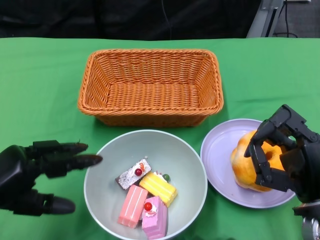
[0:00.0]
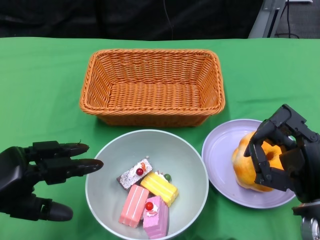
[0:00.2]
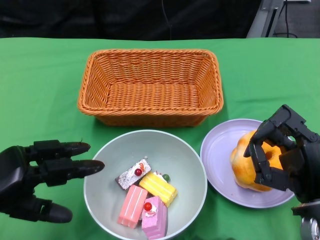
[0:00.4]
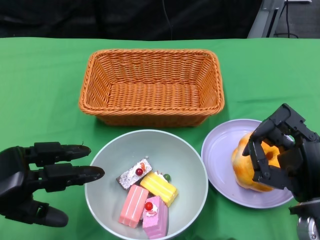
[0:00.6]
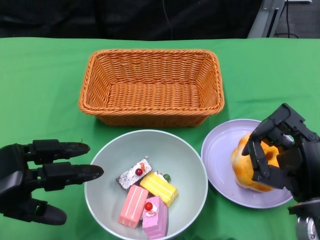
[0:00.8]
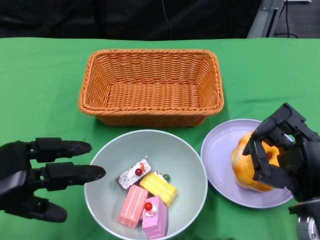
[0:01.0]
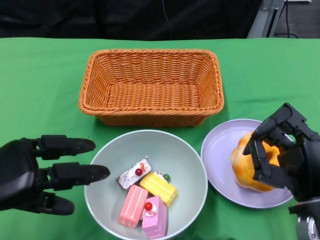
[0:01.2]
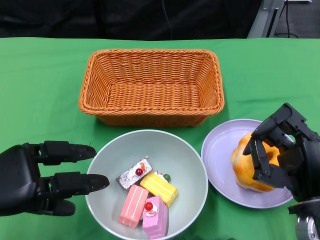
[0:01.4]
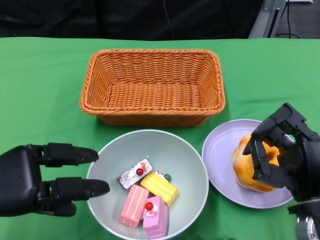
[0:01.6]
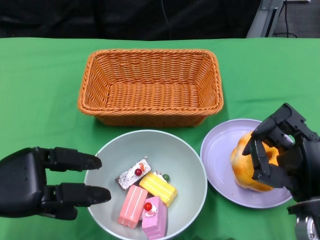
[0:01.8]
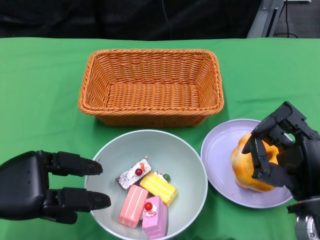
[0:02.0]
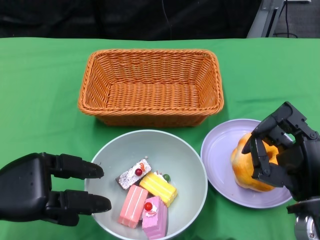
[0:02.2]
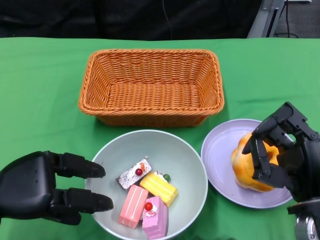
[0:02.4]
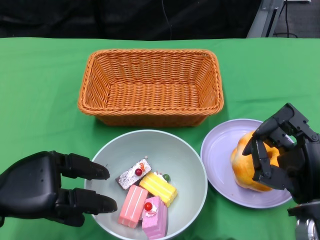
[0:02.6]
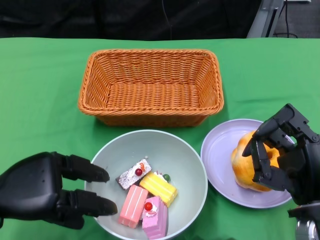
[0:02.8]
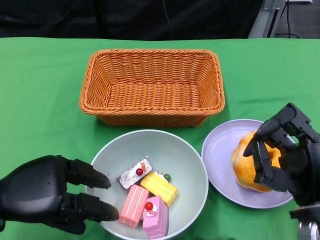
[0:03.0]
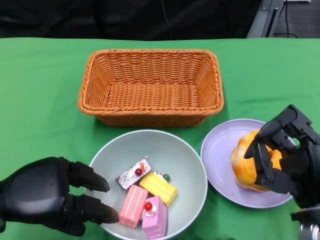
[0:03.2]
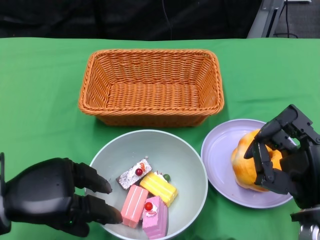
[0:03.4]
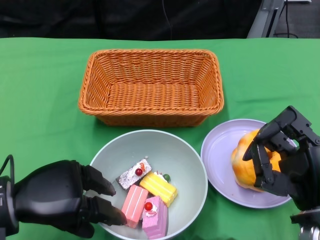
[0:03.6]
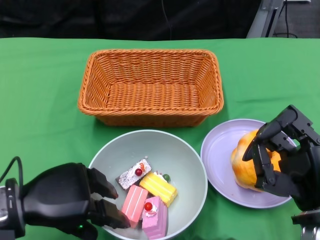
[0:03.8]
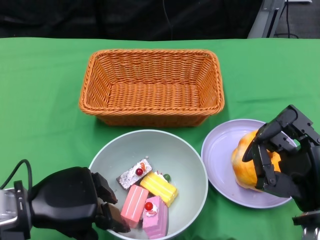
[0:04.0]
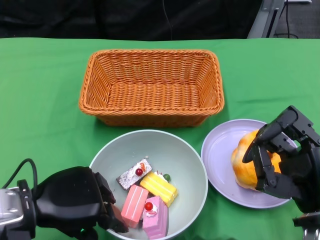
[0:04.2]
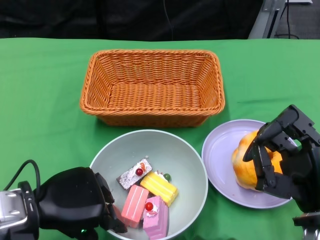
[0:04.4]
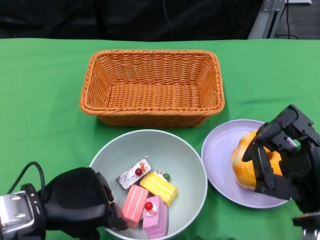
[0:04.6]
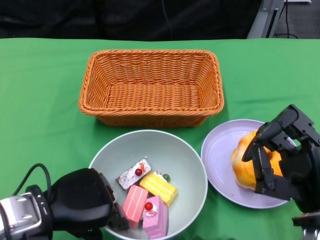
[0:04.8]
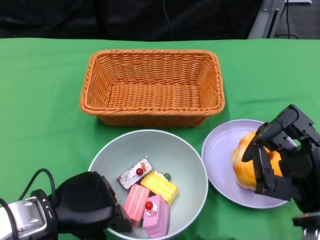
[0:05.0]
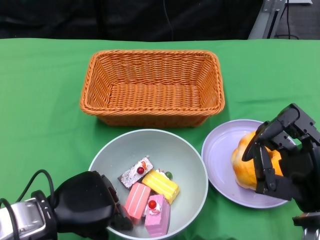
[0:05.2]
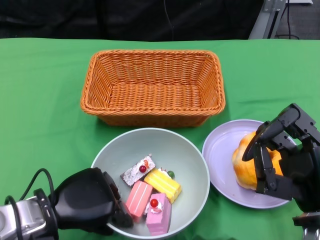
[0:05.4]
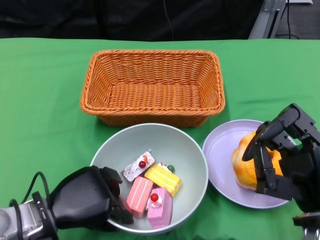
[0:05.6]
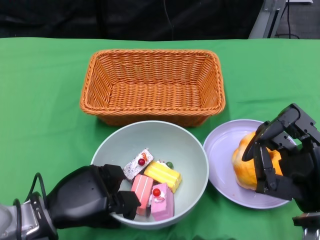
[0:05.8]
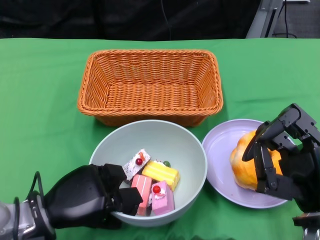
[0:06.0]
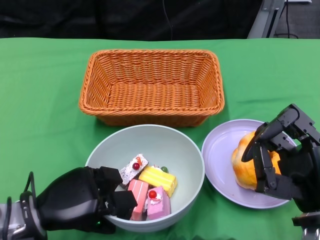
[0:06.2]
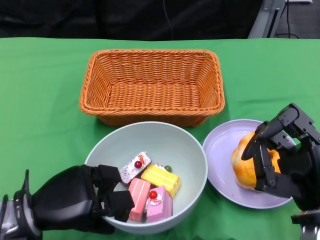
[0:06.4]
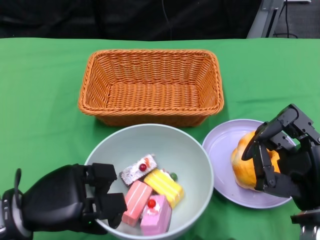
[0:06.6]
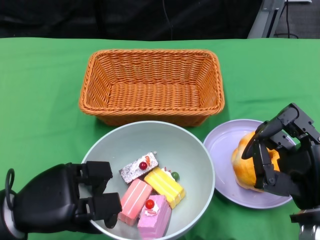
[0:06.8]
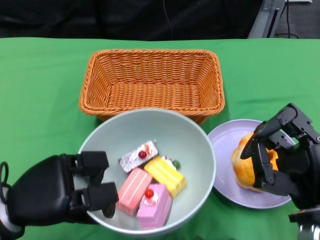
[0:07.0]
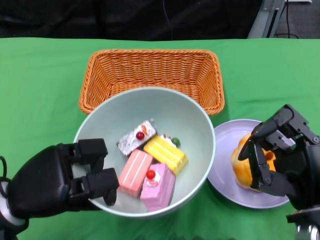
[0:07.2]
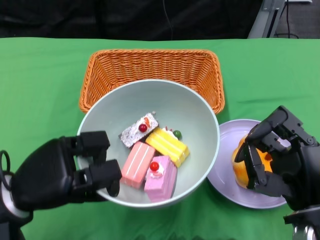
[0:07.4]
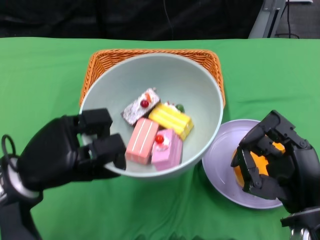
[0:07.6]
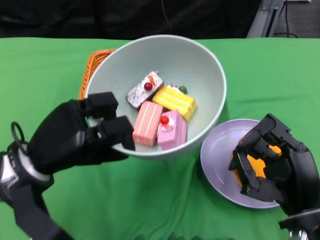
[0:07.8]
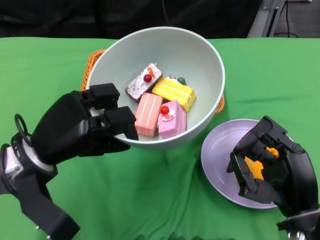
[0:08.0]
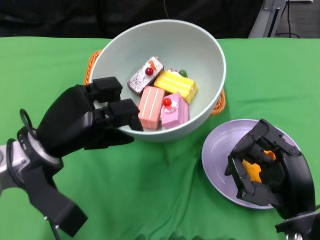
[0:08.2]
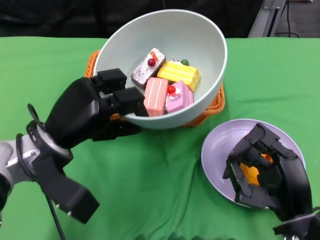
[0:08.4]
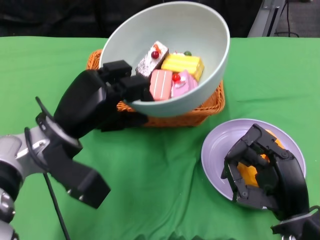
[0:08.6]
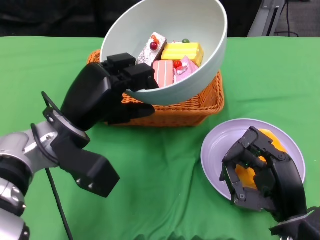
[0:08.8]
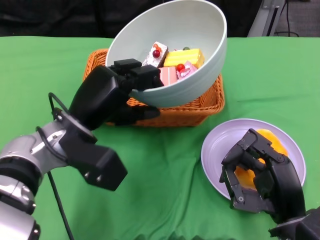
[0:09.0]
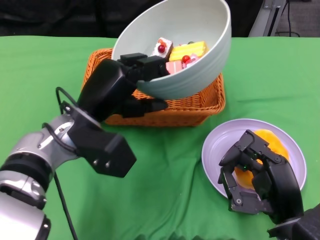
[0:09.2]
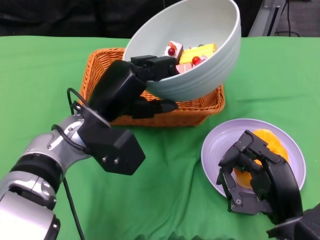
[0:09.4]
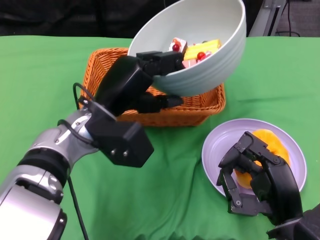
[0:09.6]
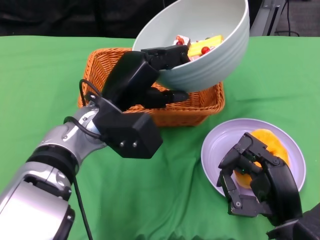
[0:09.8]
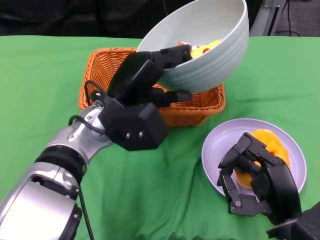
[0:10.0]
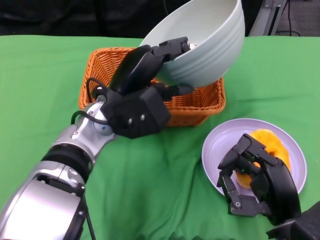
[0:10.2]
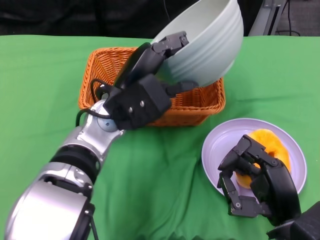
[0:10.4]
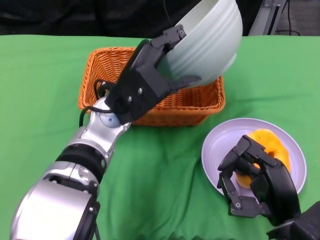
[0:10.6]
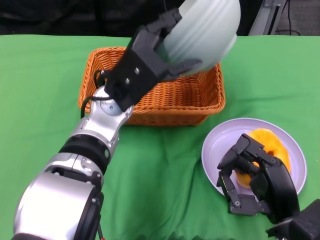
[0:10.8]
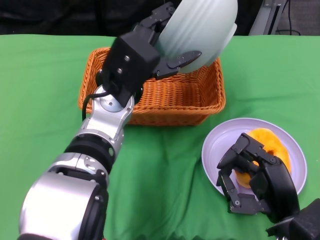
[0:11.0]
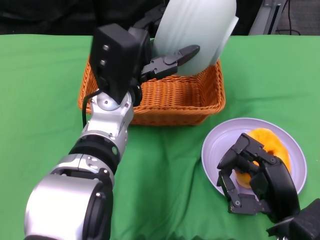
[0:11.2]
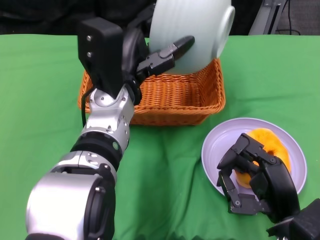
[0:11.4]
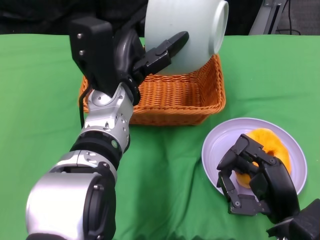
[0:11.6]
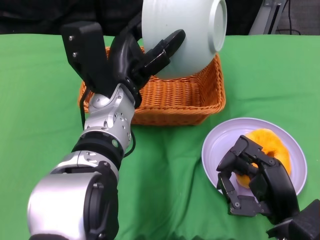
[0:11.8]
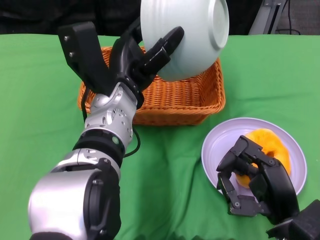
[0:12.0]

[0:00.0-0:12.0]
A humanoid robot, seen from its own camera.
Step, 0:00.0 to 0:06.2: Grasp the bowl with the left gripper.
0:01.6 to 0:03.0: The hands stay close to where they were, moving slightly.
0:04.4 to 0:06.0: The left hand shifts approximately 5 cm downward.
0:06.0 to 0:07.6: The left hand heads upward, covering some 5 cm.
0:07.6 to 0:09.0: The left hand goes roughly 10 cm to the right and forward.
0:09.0 to 0:10.4: The left hand shifts about 5 cm to the right.

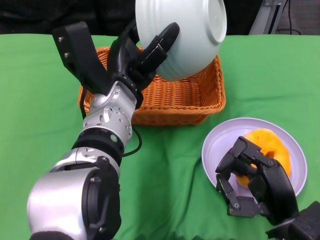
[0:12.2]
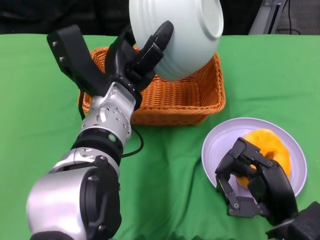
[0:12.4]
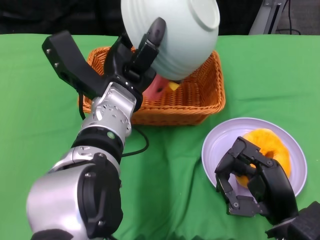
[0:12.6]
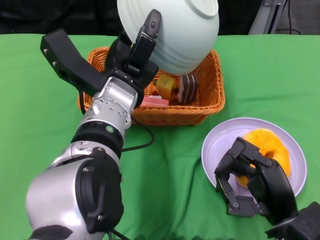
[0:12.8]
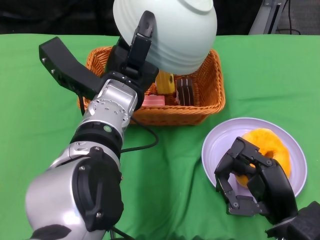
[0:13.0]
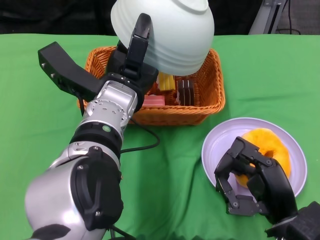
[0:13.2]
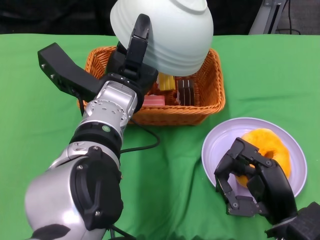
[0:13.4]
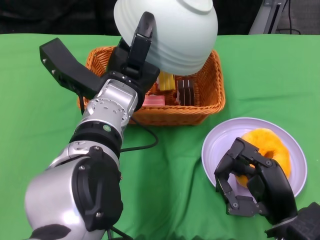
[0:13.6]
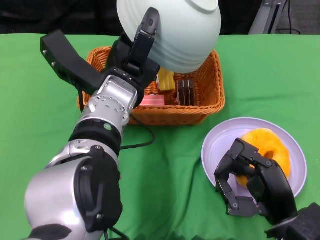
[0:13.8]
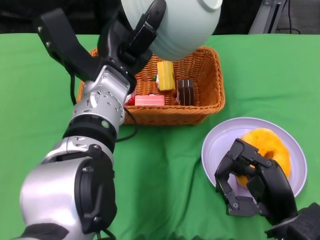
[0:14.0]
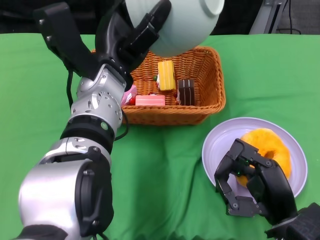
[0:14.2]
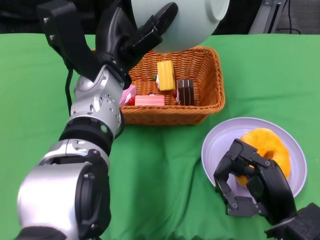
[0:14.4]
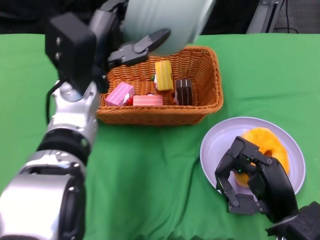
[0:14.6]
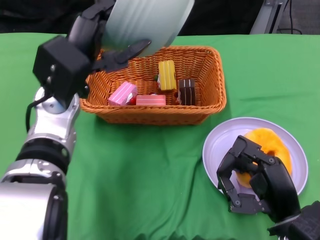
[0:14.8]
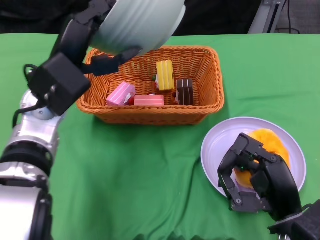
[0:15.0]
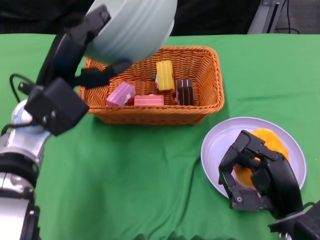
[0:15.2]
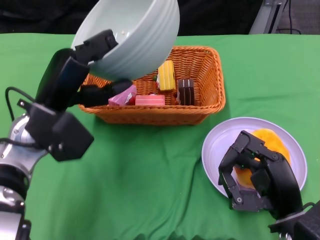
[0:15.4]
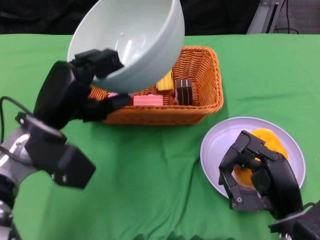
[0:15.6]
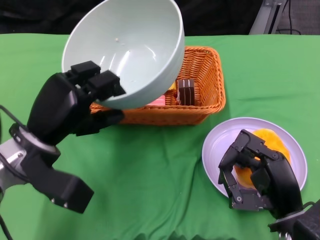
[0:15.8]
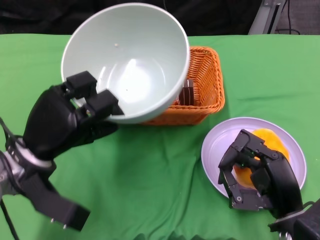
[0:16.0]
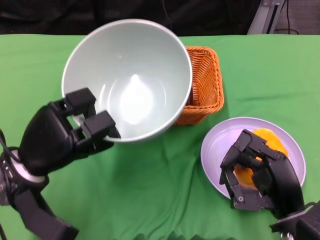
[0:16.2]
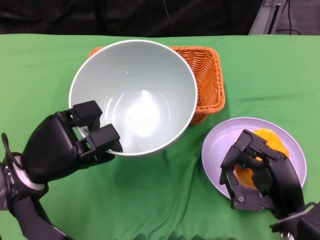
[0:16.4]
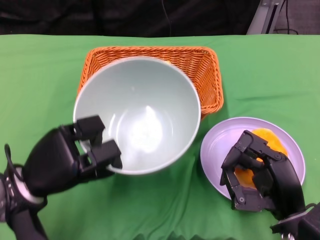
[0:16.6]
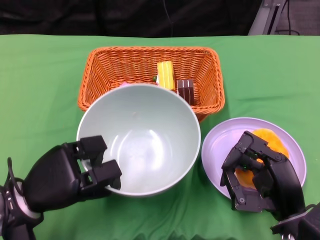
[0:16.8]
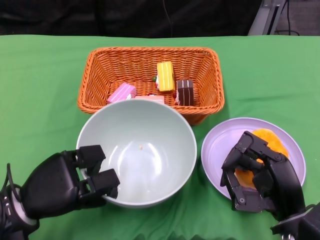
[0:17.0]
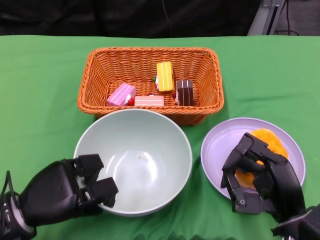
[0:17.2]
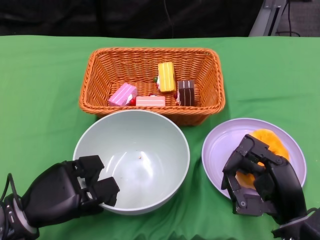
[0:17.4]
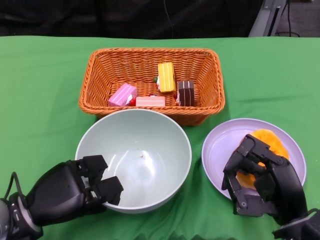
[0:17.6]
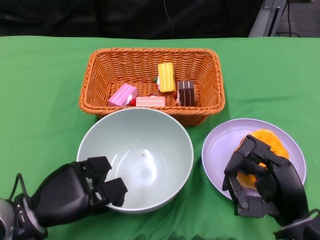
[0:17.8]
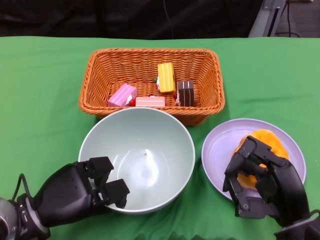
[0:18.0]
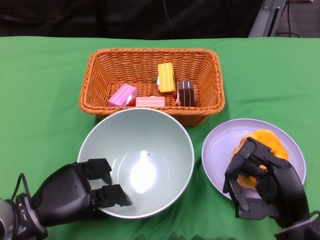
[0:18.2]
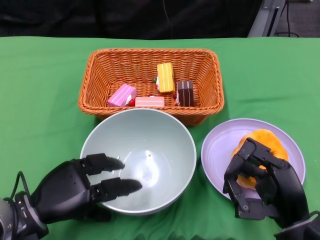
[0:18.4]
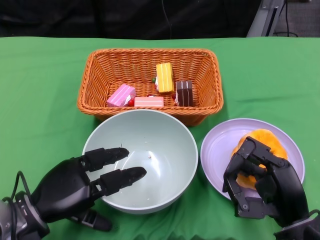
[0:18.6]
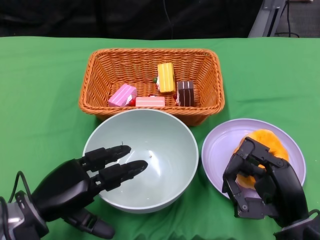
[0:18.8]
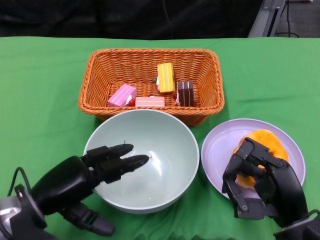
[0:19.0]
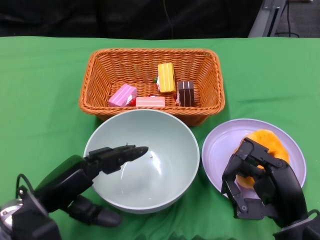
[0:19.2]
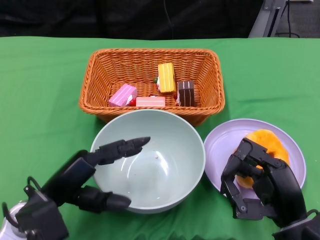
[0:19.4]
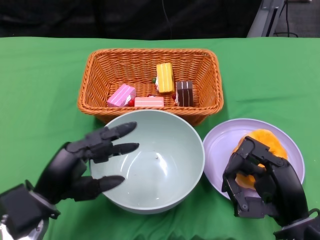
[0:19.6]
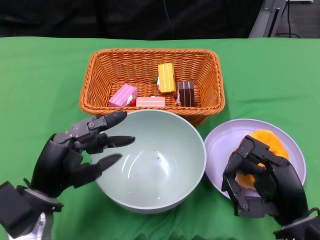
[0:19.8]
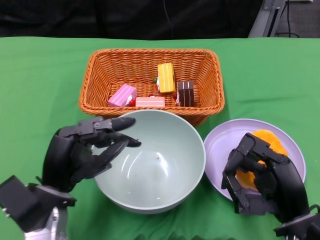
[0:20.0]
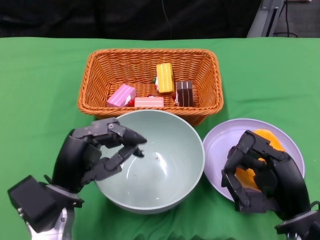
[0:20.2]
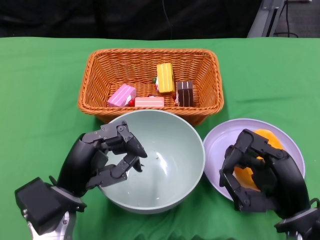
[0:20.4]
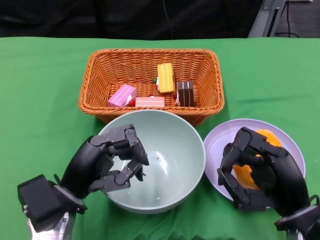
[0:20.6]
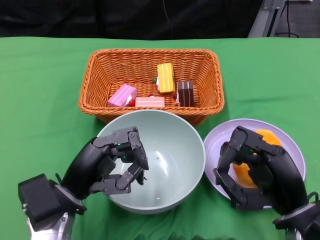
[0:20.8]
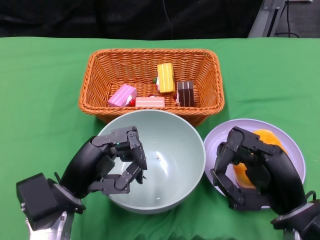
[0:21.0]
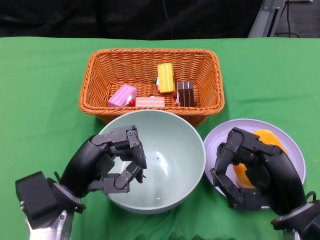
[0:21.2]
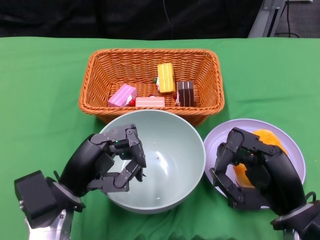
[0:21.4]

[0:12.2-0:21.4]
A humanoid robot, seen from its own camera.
Step, 0:13.6 to 0:18.2: Place the bowl on the table with the left gripper.
0:13.8 to 0:15.2: The left hand shifts about 10 cm to the left.
0:15.2 to 0:16.8: The left hand heads downward, backward and to the left, covering some 15 cm.
0:19.8 to 0:21.4: The hands stay close to where they were, moving slightly.

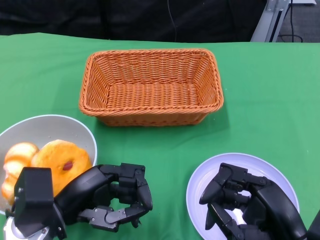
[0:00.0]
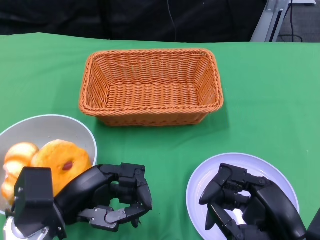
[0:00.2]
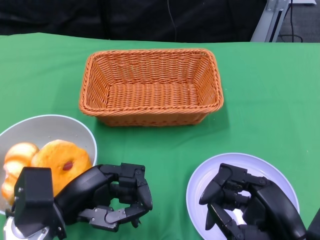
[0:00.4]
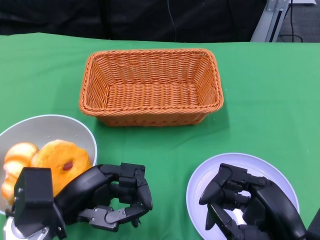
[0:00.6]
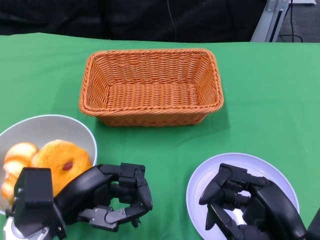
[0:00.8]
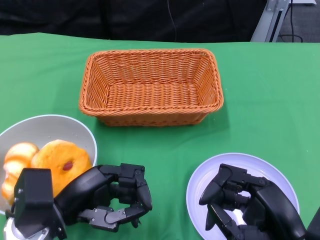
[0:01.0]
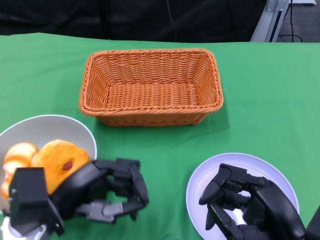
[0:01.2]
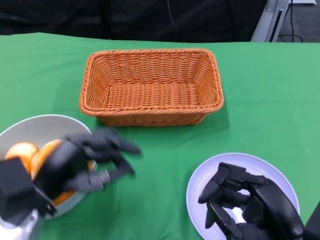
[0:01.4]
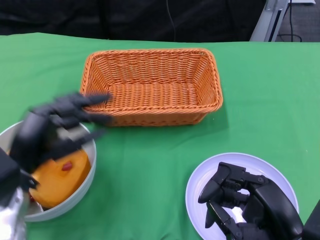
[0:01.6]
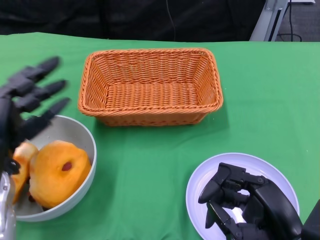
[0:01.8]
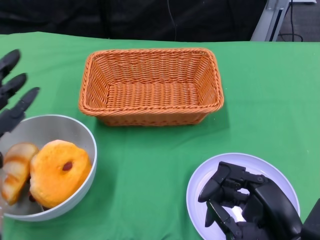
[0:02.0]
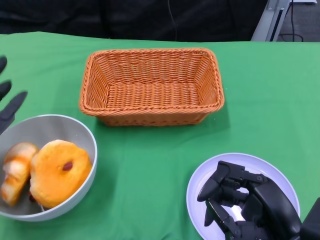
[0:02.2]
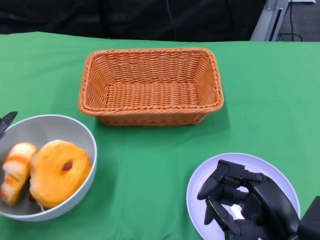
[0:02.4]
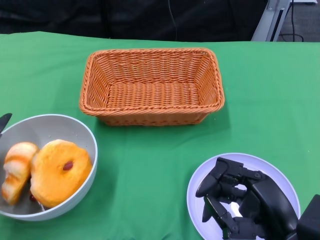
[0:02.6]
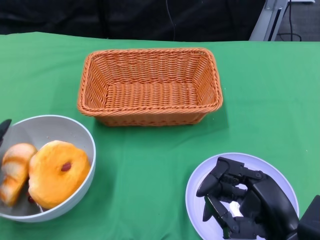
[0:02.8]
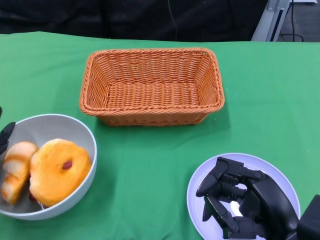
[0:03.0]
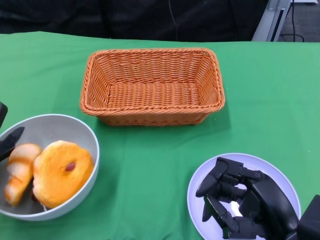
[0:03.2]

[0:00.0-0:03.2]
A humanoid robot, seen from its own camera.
0:01.6 to 0:03.2: The left hand heads to the left, covering some 5 cm.
